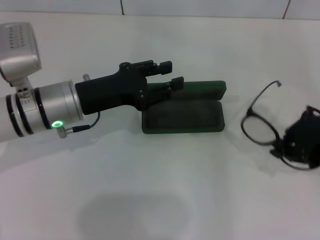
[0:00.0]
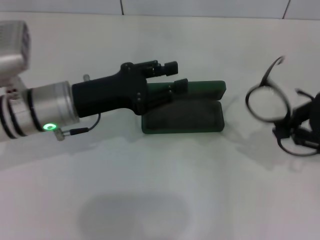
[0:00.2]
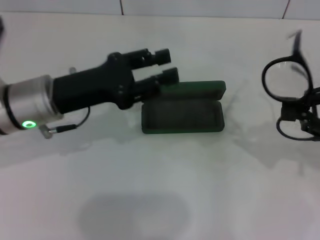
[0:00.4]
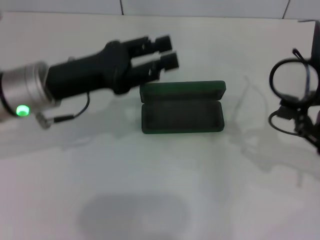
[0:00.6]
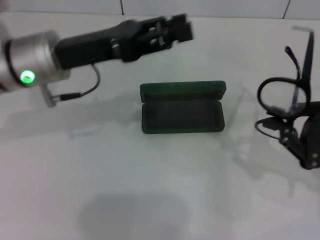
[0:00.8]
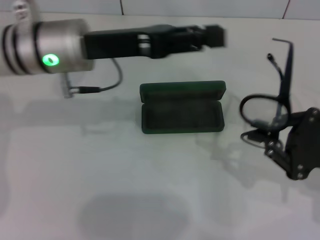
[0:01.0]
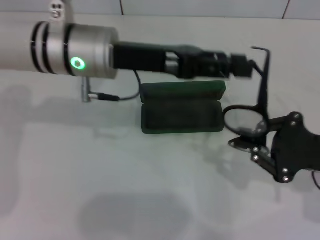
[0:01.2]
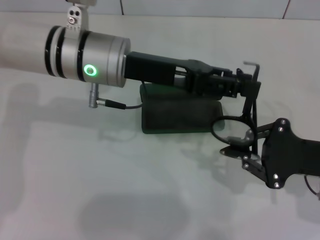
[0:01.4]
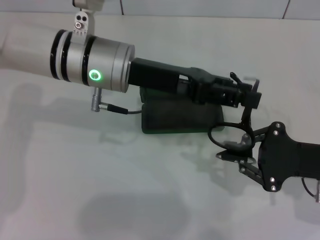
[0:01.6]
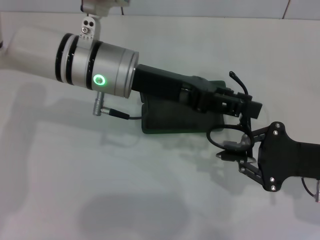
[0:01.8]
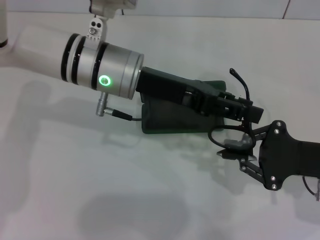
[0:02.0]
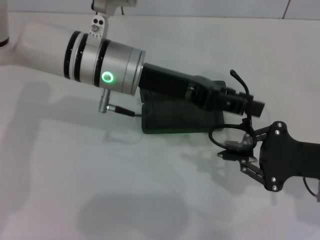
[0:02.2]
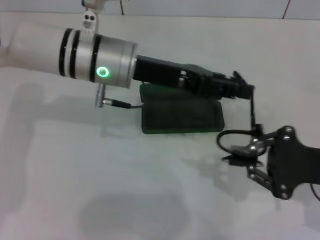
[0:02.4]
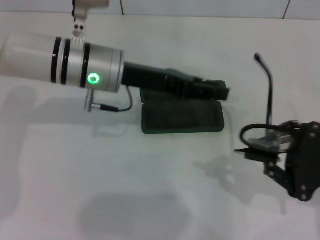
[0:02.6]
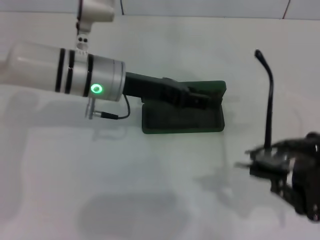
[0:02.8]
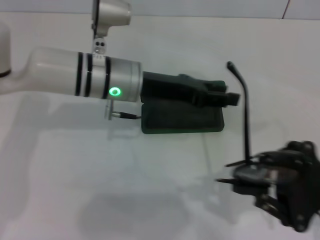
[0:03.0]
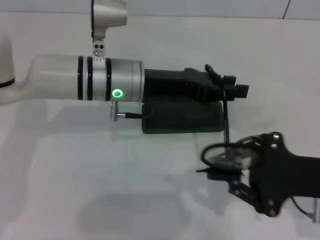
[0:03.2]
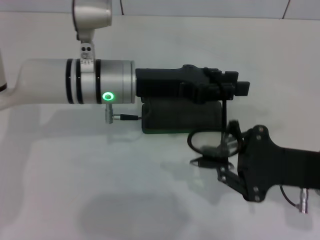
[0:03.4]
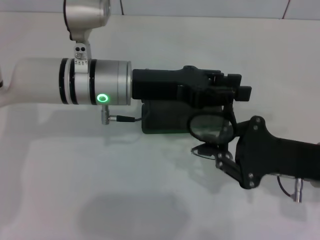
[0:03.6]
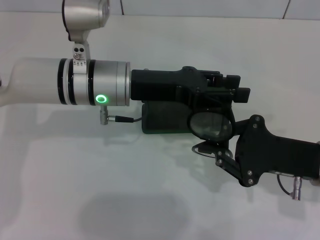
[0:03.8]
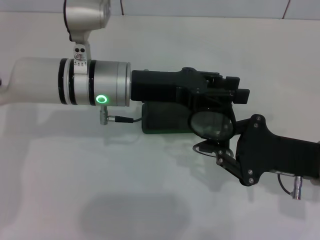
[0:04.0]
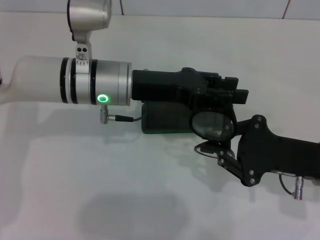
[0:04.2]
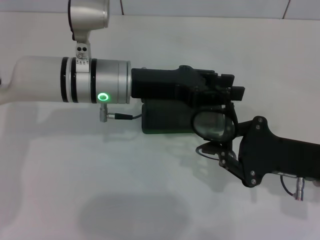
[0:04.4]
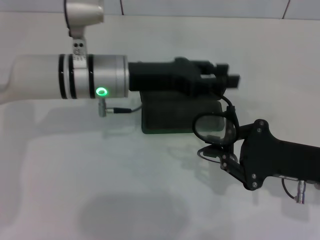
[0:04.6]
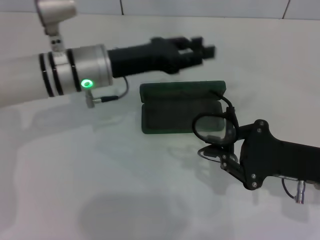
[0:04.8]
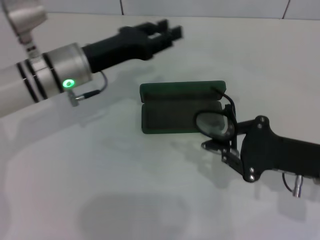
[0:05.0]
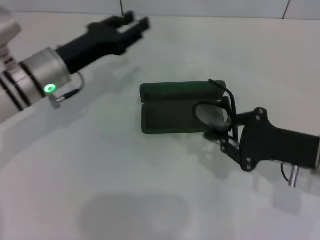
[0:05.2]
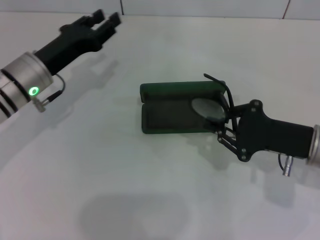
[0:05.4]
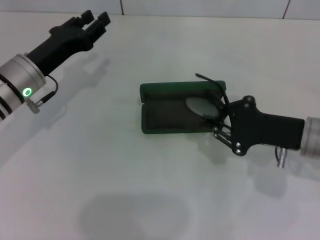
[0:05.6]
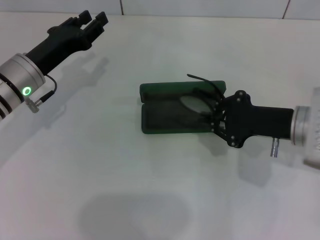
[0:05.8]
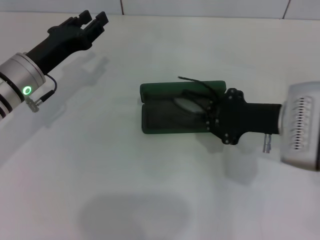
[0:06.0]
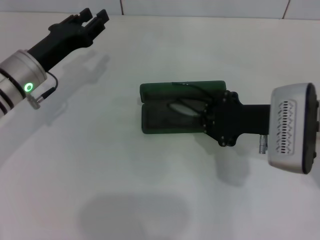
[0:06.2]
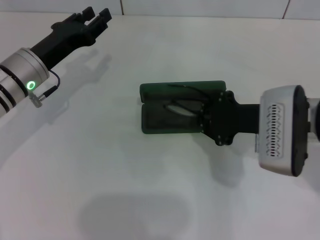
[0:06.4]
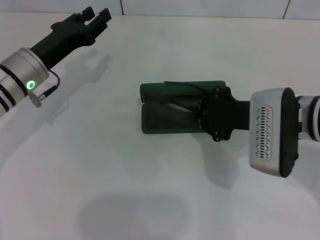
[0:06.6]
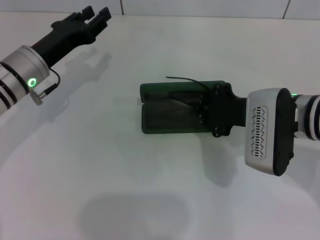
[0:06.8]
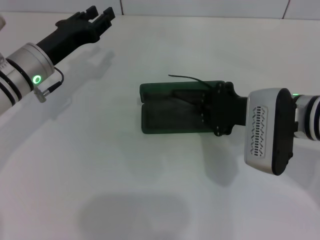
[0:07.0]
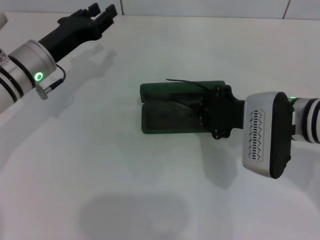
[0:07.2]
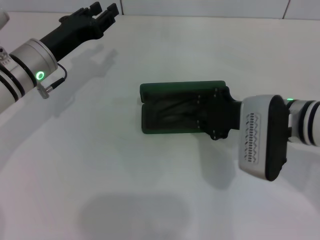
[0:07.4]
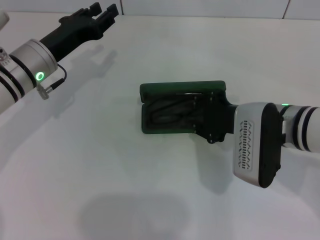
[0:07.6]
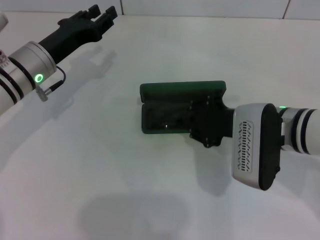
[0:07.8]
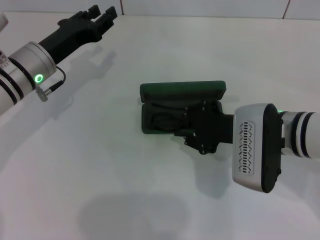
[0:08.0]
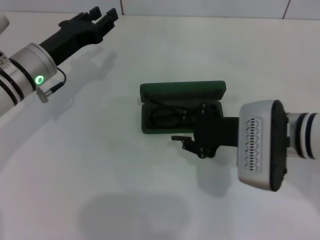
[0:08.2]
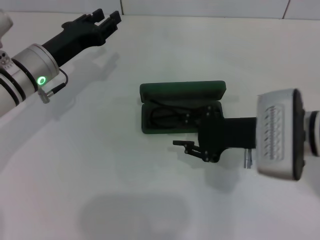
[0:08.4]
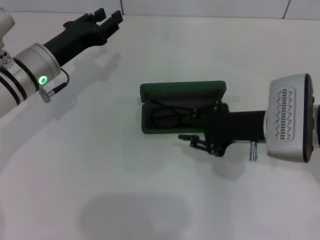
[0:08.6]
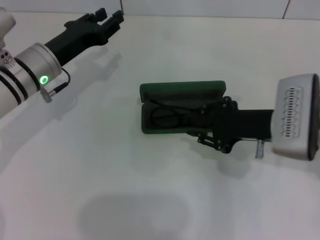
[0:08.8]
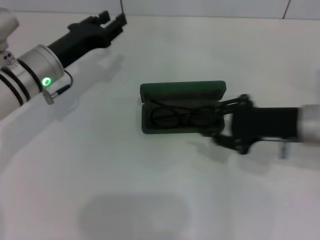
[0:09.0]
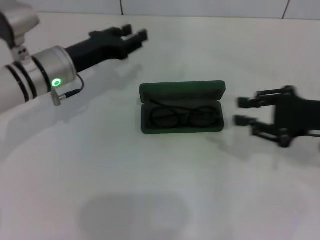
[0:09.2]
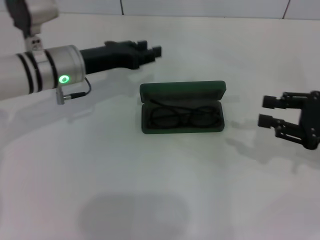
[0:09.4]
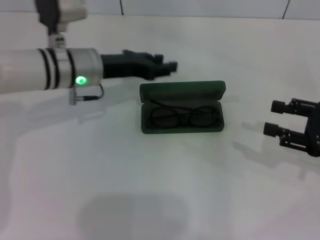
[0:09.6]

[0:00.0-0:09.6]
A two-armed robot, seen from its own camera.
Step, 0:00.0 to 0:04.2: Fold the frame with your left hand.
Step, 0:04.4 to 0:08.0: Put the glasses into the case with your right hand.
0:00.0 to 0:01.6: The left gripper is displaced to the right and upward by about 10 cm. The right gripper shifts roughly 10 cm downward.
0:04.8 to 0:06.4: The right gripper moves to the left and forward, approximately 10 cm. Meanwhile the left gripper moves to the left, roughly 10 cm.
0:06.4 to 0:08.0: The grippers stay close to where they were, moving slightly.
0:08.0 to 0:09.6: The left gripper goes approximately 5 cm to the right; the right gripper moves to the right, approximately 20 cm.

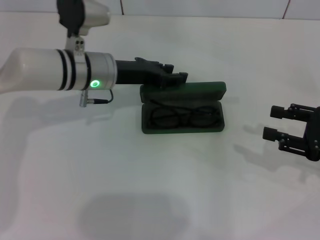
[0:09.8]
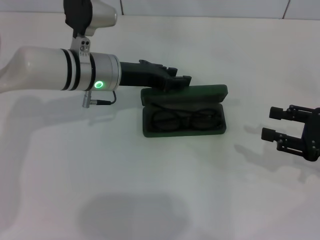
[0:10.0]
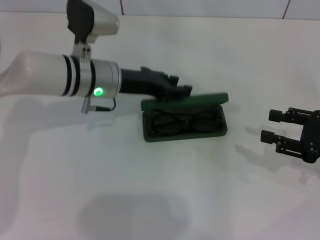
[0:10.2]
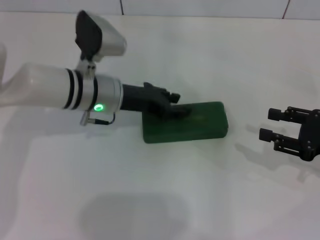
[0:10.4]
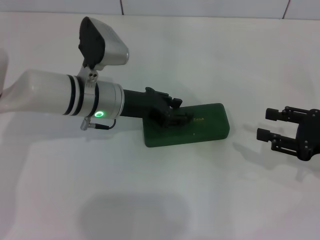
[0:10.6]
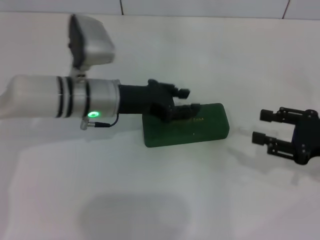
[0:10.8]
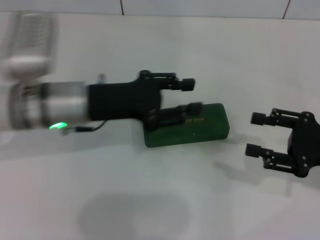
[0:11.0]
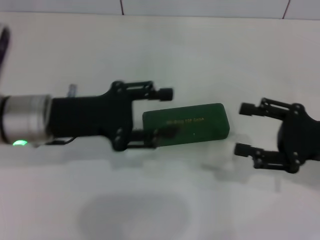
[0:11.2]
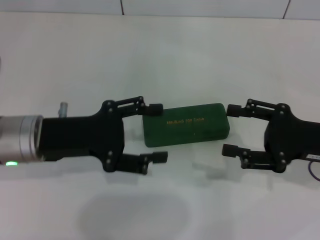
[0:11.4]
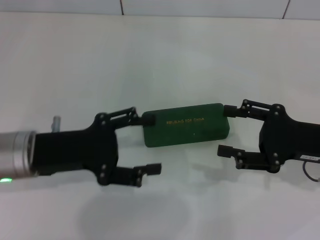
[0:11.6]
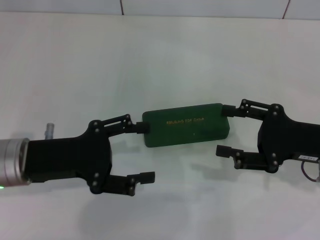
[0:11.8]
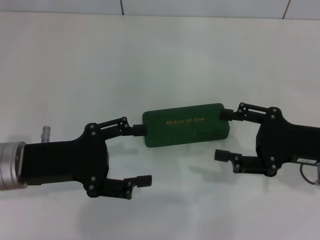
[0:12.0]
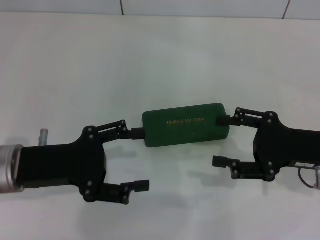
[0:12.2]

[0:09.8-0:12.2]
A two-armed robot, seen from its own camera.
0:09.8 to 0:11.0: The left gripper moves backward, about 10 cm.
0:11.0 to 0:12.2: The left gripper is displaced backward and to the left by about 10 cm, and opens its fingers.

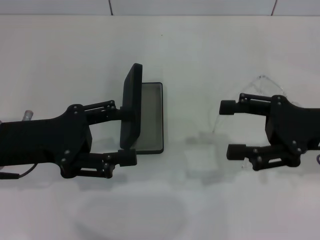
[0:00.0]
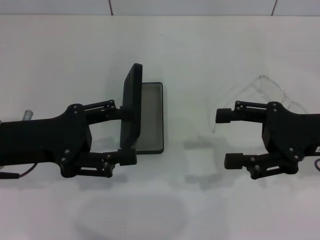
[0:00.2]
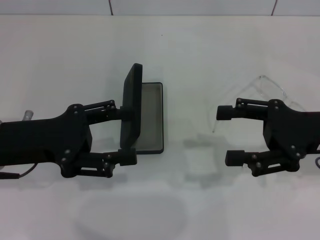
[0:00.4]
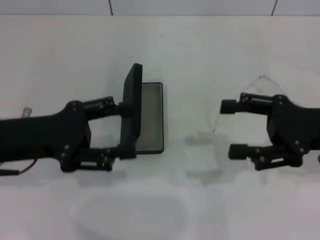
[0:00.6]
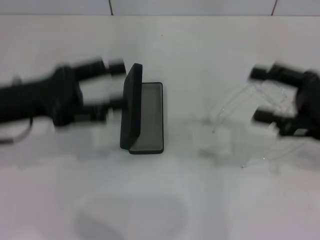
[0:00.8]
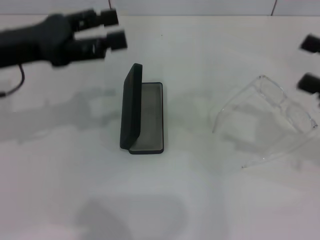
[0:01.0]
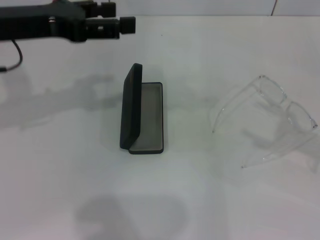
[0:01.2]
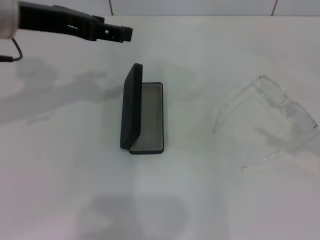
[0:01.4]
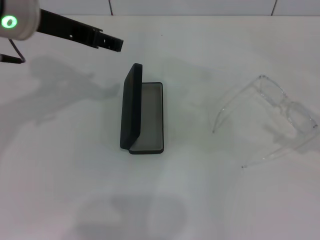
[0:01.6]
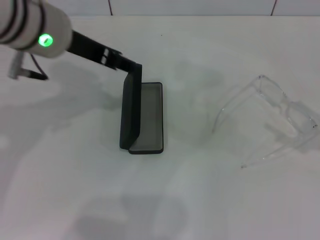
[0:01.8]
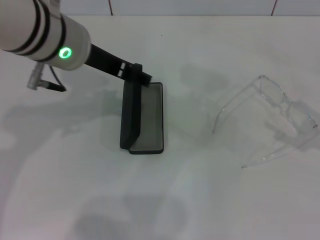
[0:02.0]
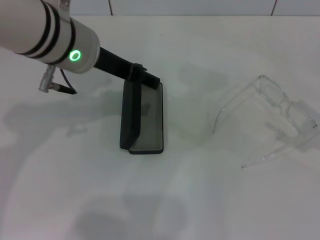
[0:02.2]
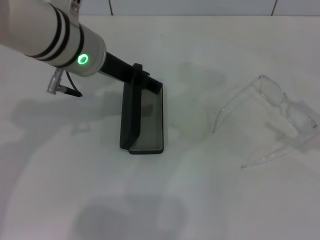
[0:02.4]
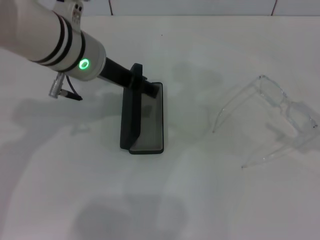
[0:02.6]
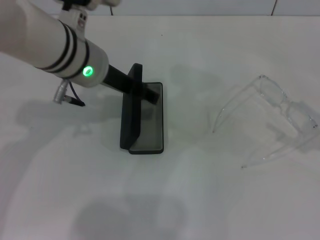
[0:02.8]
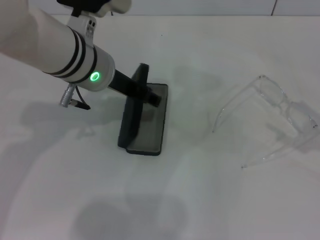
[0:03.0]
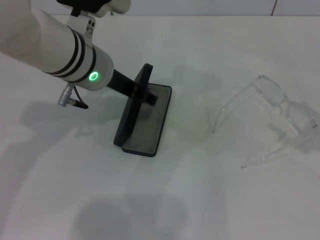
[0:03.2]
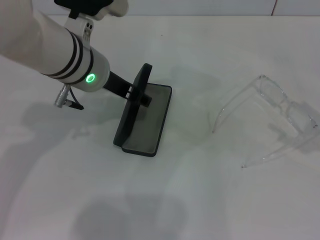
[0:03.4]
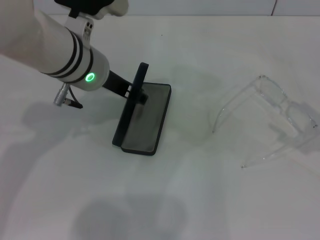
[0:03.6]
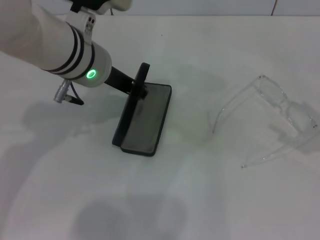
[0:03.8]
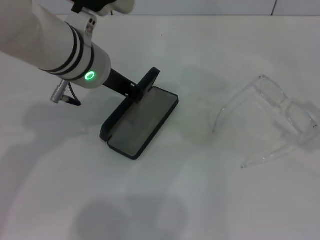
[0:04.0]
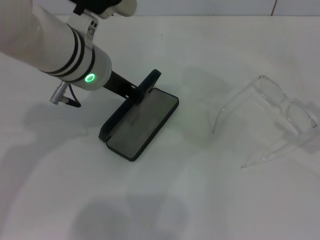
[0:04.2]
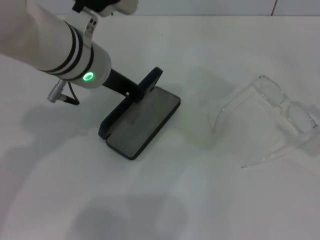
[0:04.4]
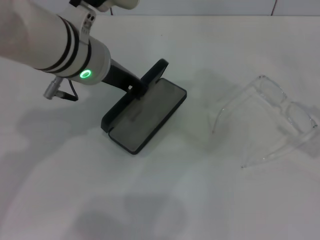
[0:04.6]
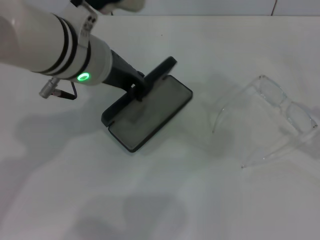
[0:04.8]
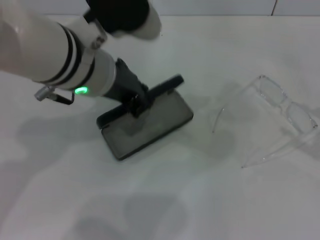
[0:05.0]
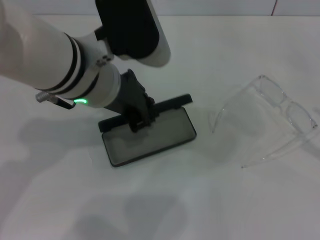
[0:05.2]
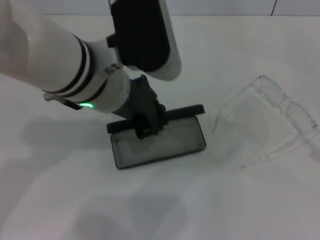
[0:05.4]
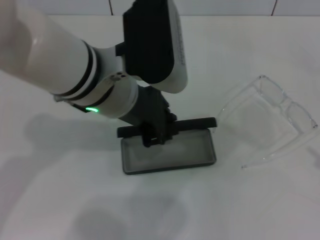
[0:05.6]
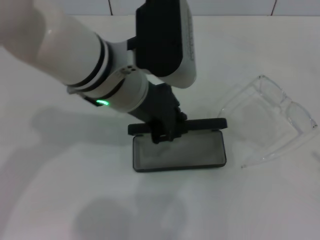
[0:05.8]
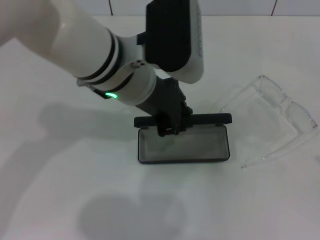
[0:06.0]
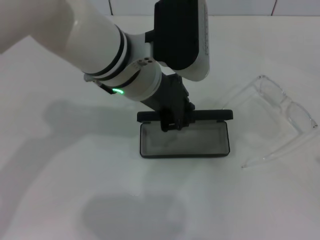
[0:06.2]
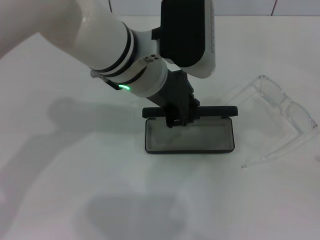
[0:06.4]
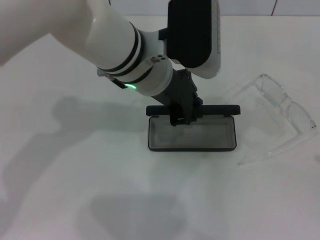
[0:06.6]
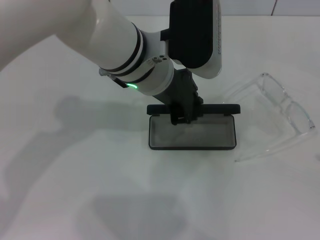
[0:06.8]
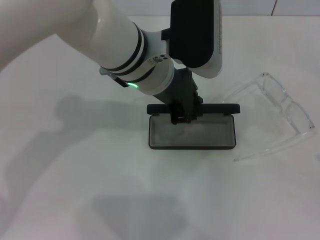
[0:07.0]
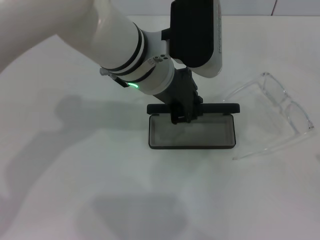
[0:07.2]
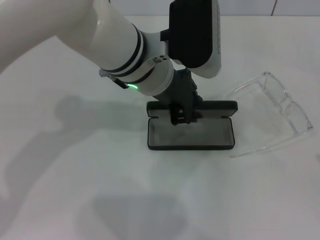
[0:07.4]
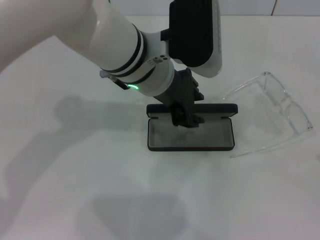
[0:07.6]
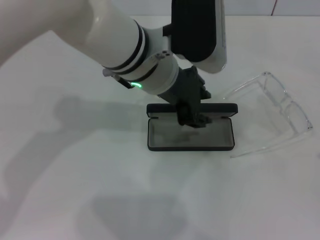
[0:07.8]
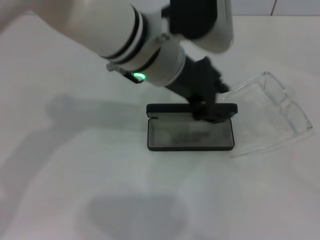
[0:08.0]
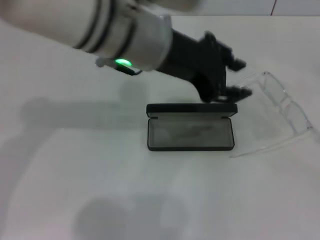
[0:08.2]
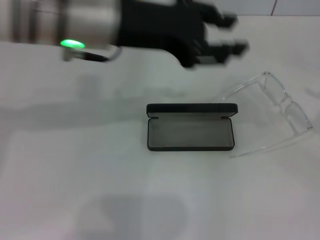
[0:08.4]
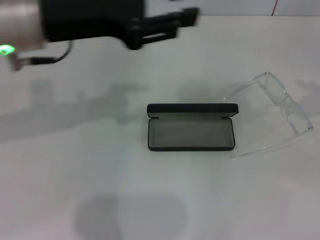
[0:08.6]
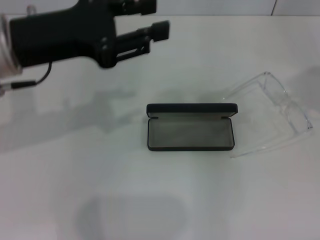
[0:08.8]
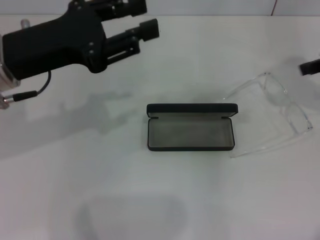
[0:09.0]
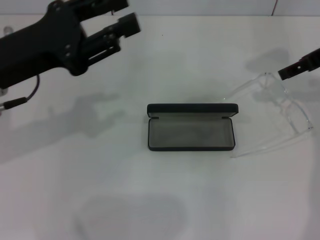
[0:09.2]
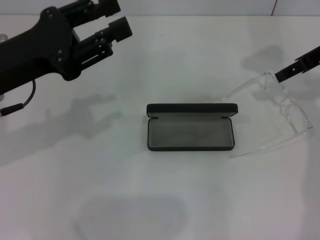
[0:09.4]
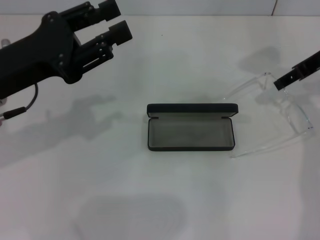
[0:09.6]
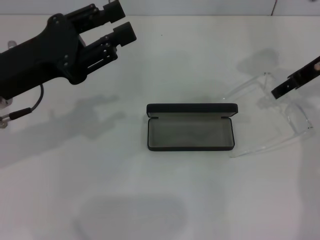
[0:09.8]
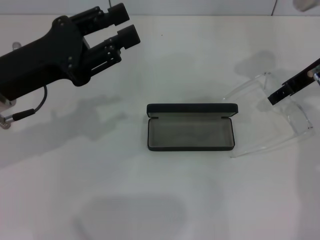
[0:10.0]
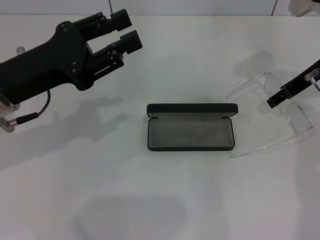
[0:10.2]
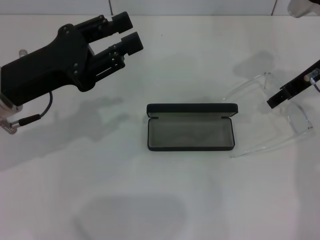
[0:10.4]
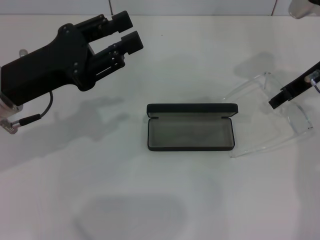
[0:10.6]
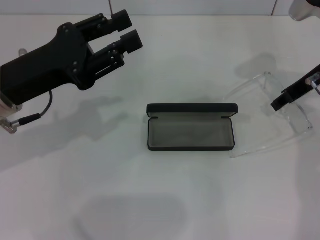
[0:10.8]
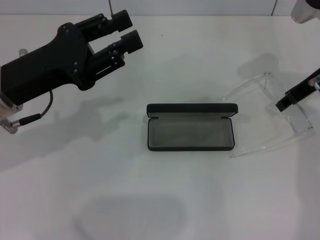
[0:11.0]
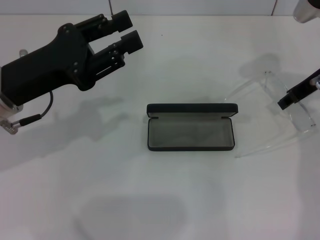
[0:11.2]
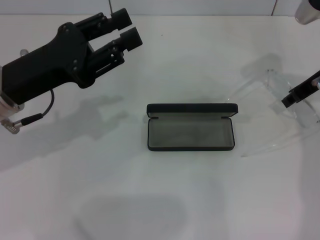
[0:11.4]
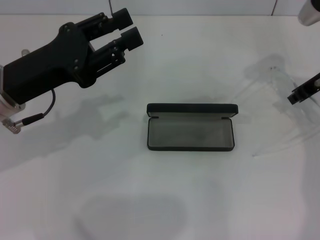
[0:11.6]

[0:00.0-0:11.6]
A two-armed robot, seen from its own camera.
Step, 0:00.0 to 0:03.8: Grab the glasses case with your left hand.
Step, 0:04.0 to 0:07.4: Place the glasses case in the center of the table with your left hand.
Step, 0:07.6 to 0:11.0: Grab the eyeglass frame with your right hand.
0:00.0 to 0:01.4: The right gripper travels to the right by roughly 10 cm. Meanwhile the left gripper moves upward and forward, about 15 cm.
0:01.4 to 0:02.8: The left gripper is displaced to the right and downward by about 10 cm.
0:02.8 to 0:04.4: The left gripper closes.
0:04.4 to 0:05.8: The left gripper changes place by approximately 5 cm. The right gripper travels backward by approximately 10 cm.
0:07.2 to 0:08.8: The right gripper heads forward, upward and to the left, covering about 25 cm; the left gripper travels to the left by approximately 15 cm.
0:08.8 to 0:10.2: The right gripper moves to the left, forward and downward, roughly 15 cm; the left gripper shifts approximately 5 cm downward.
0:10.2 to 0:11.6: The right gripper closes up.
